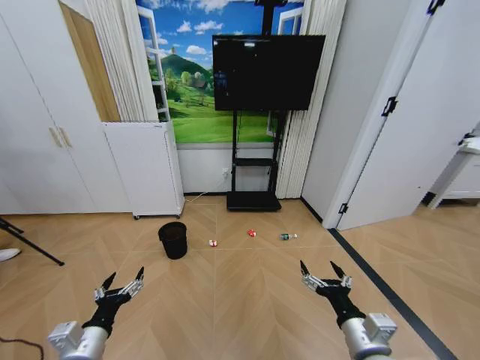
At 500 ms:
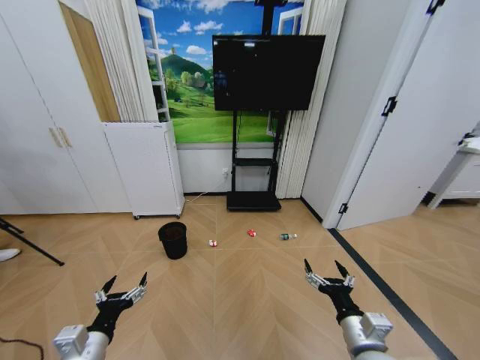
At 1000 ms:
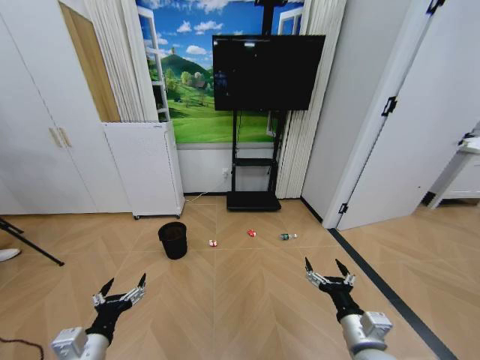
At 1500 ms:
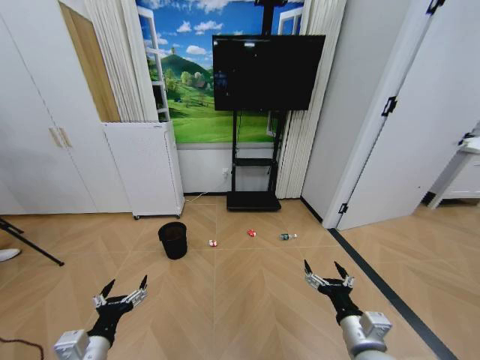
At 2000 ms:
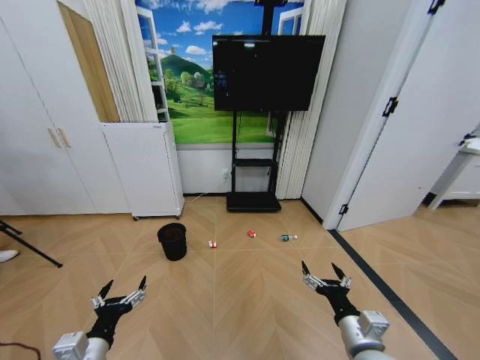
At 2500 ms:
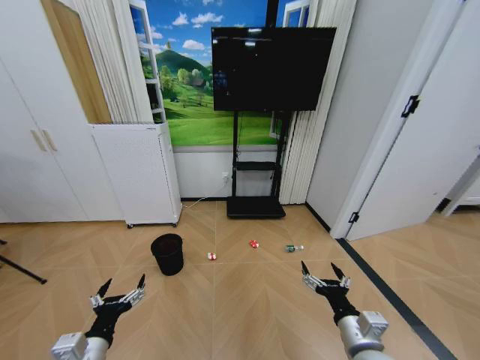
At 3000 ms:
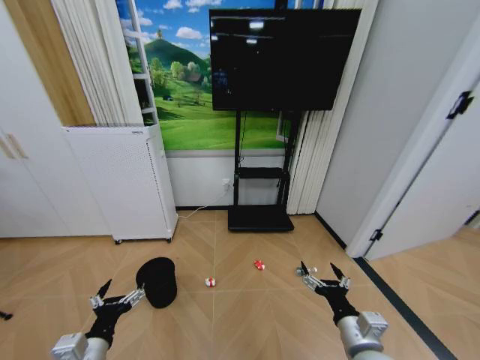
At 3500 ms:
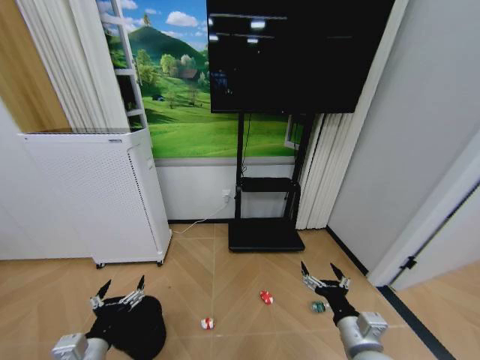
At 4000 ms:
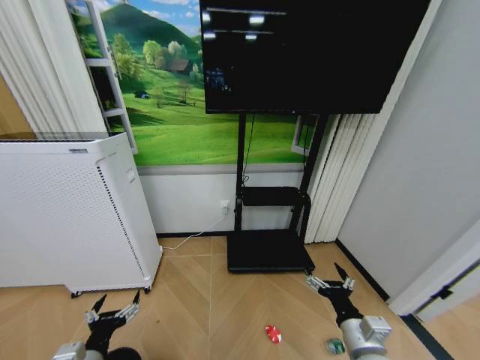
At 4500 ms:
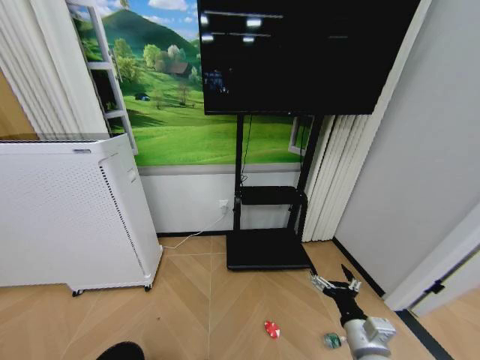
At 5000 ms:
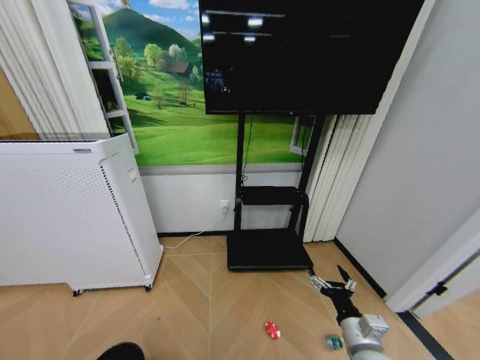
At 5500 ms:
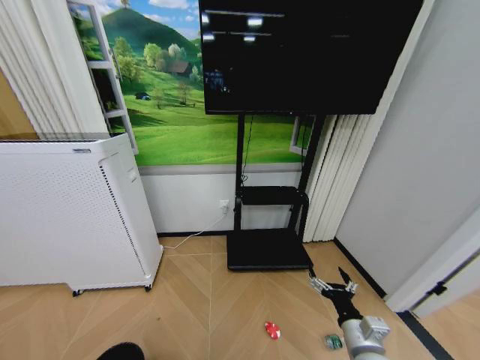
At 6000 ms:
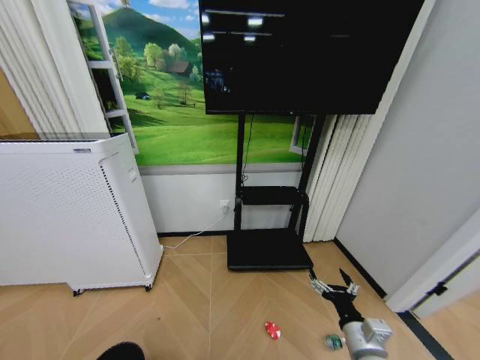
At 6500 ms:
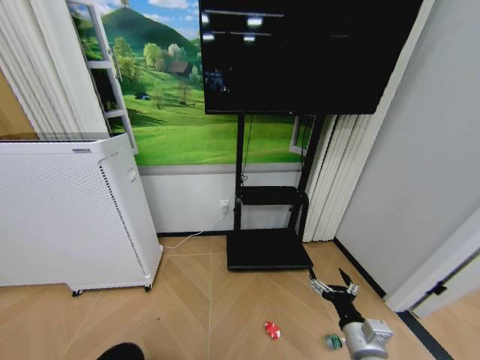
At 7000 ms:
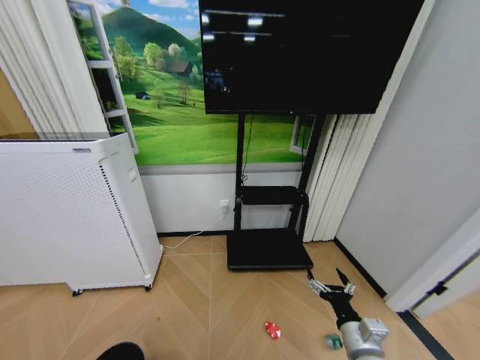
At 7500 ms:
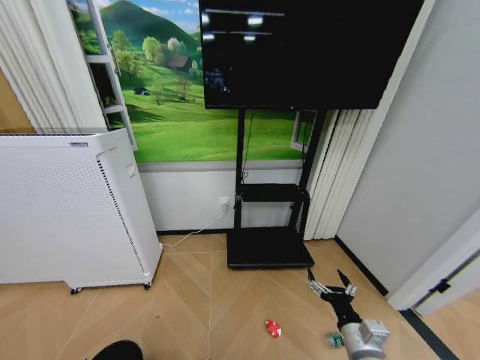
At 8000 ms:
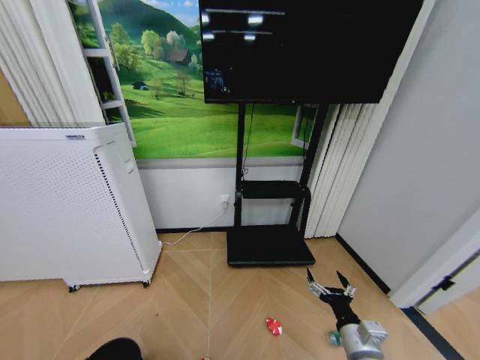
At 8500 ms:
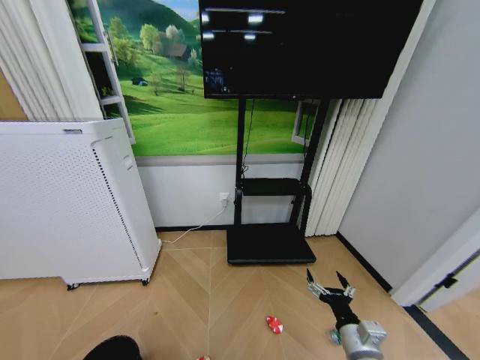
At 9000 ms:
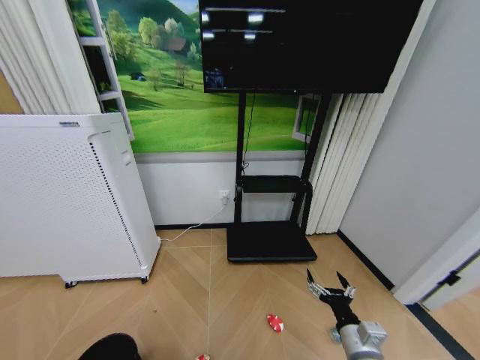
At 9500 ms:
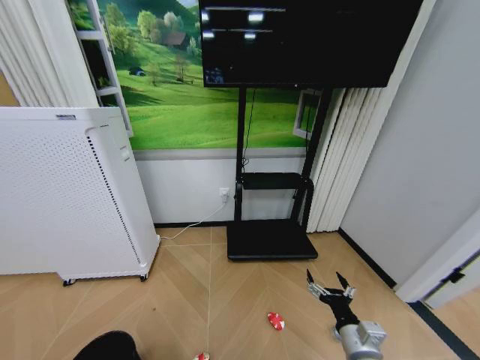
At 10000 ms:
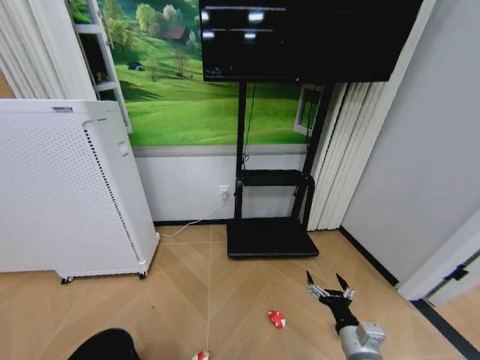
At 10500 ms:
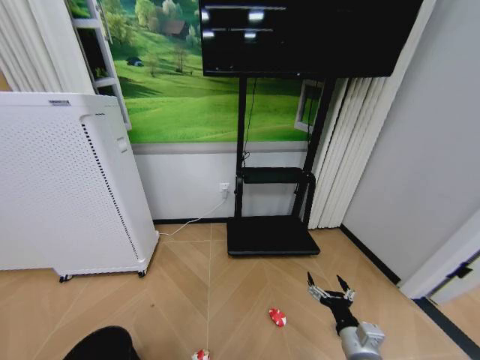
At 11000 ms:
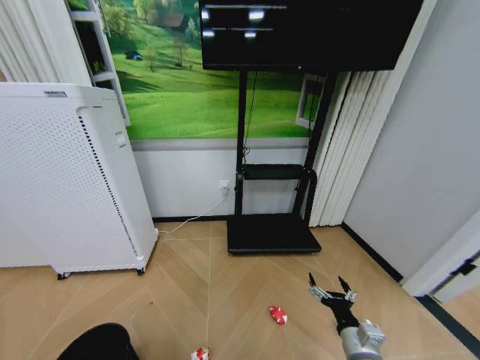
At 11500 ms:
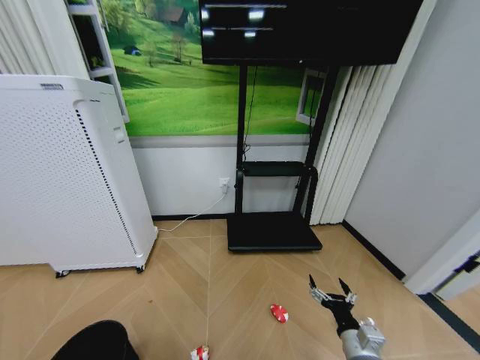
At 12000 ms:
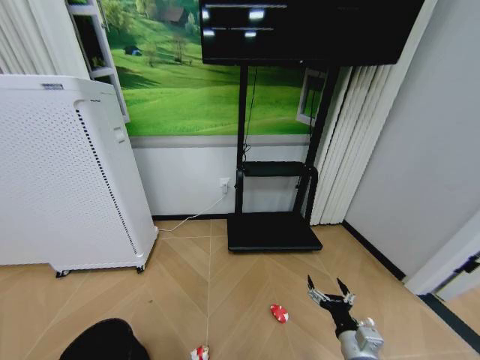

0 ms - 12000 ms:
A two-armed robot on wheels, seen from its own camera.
Task of the whole recording: Pick up the trash bin and place the garbage on the floor into it.
4000 ms - 6000 ms: The left gripper goes roughly 30 cm downward, to the left and backward.
6000 ms - 8000 ms: The left gripper travels upward by roughly 5 cm.
10000 ms - 12000 ms: The left gripper is displaced upward by about 5 cm, and closes its fingers.

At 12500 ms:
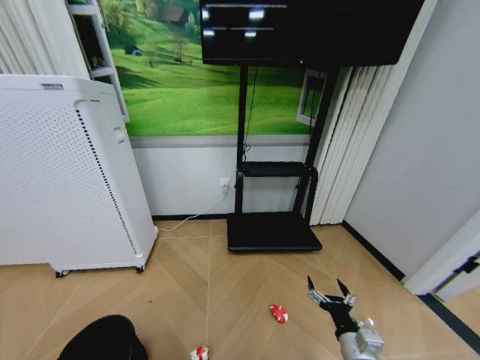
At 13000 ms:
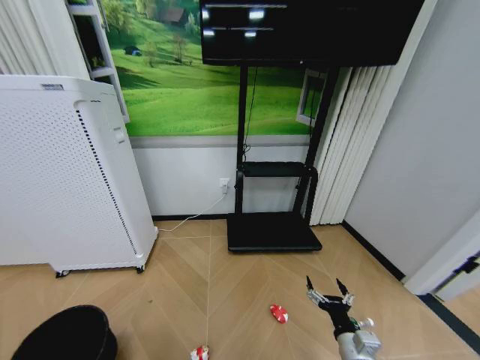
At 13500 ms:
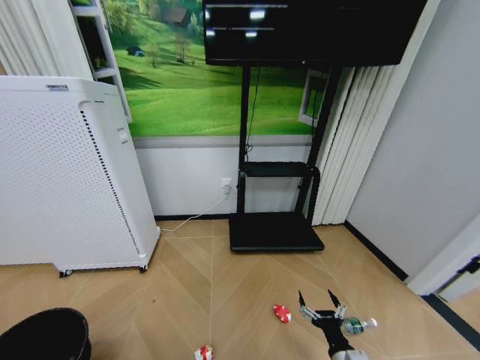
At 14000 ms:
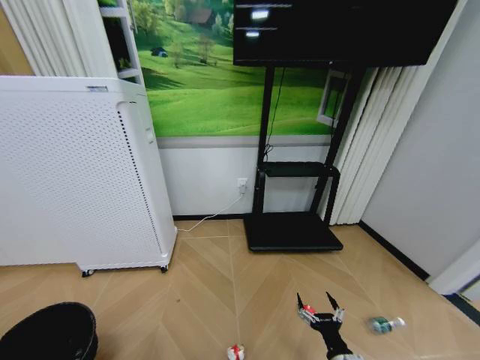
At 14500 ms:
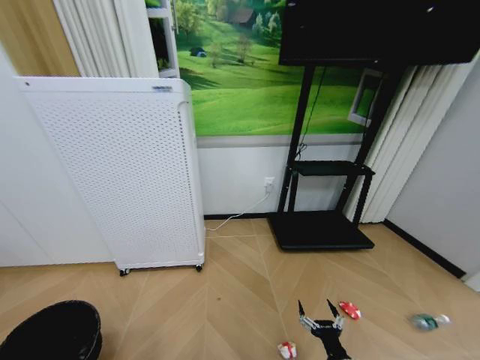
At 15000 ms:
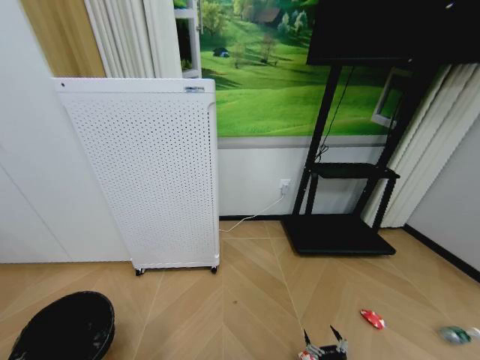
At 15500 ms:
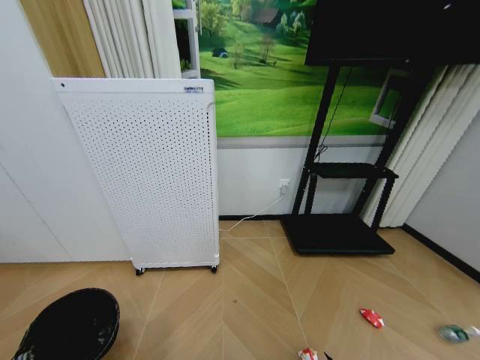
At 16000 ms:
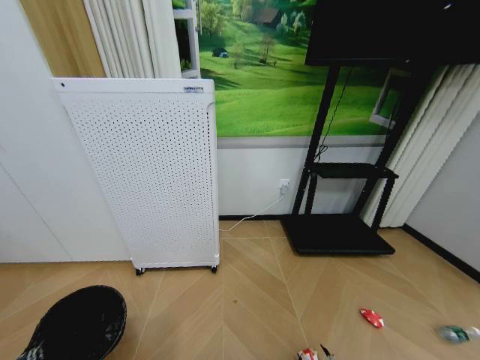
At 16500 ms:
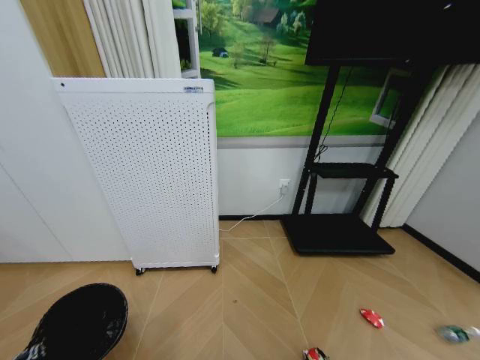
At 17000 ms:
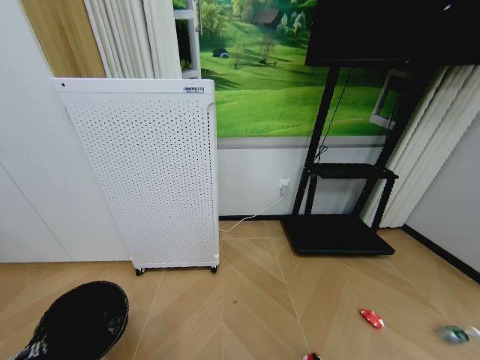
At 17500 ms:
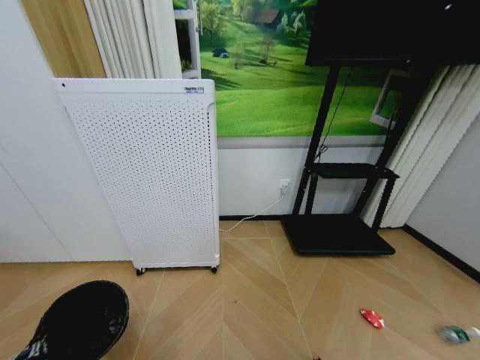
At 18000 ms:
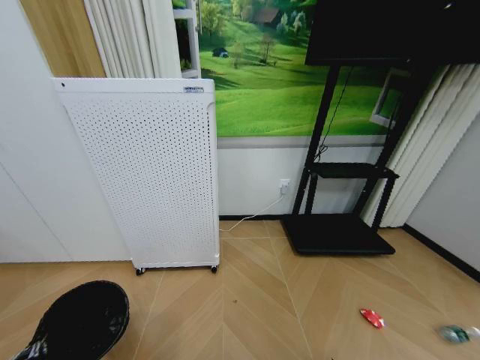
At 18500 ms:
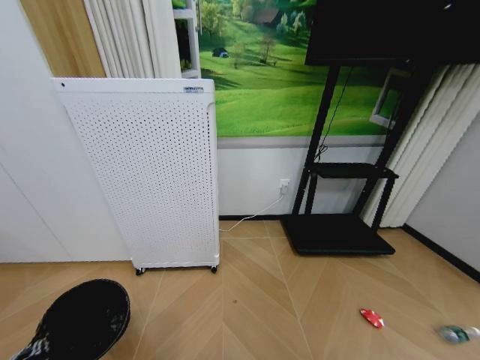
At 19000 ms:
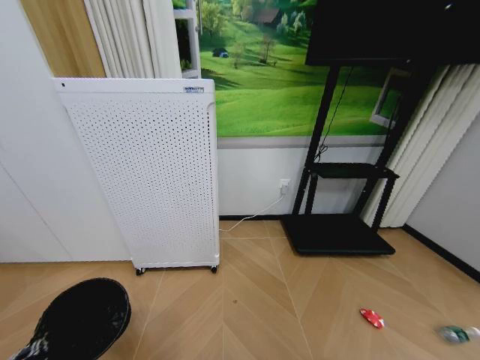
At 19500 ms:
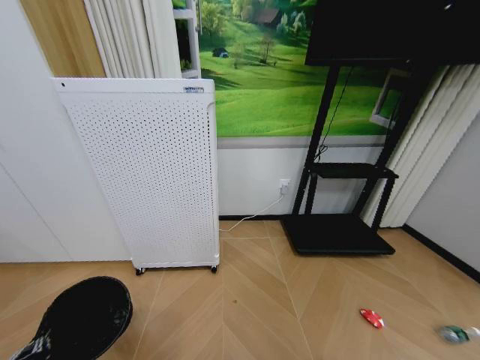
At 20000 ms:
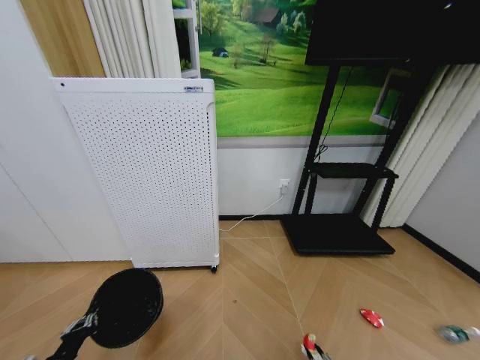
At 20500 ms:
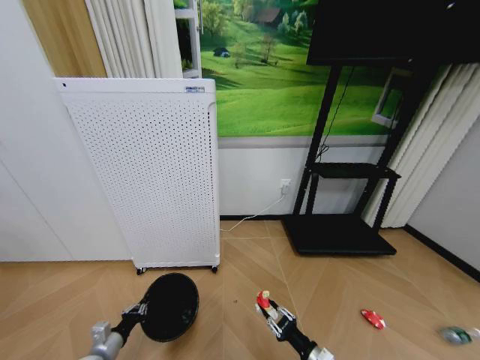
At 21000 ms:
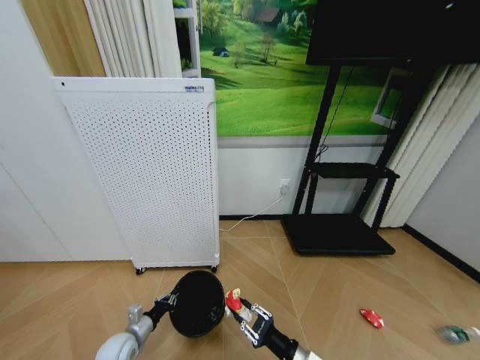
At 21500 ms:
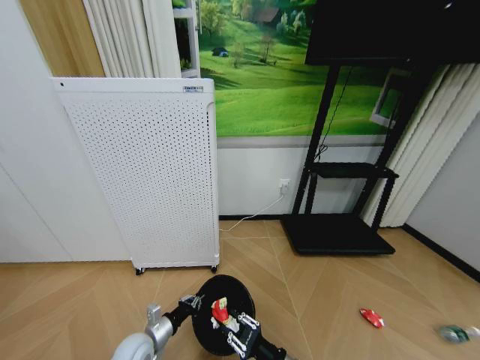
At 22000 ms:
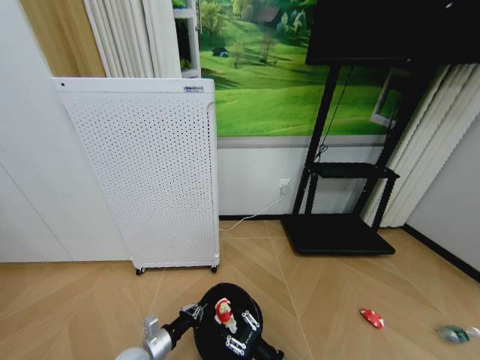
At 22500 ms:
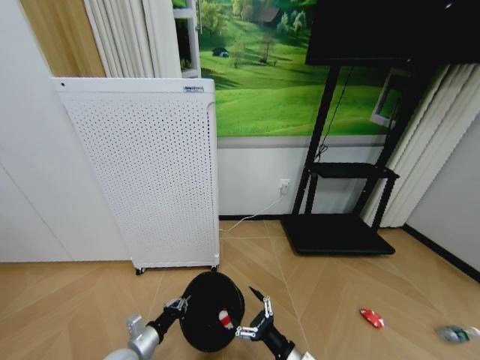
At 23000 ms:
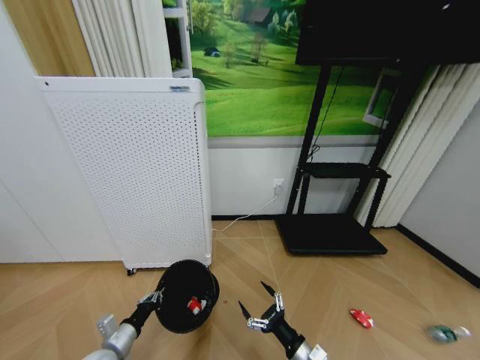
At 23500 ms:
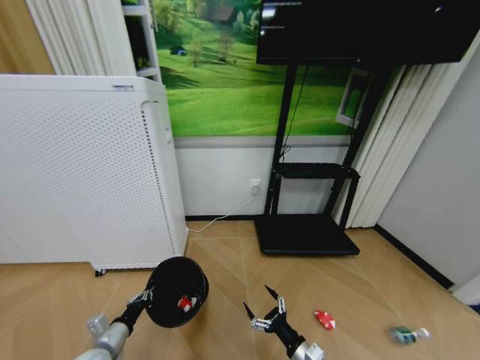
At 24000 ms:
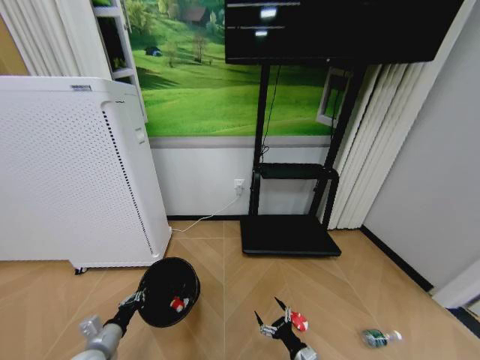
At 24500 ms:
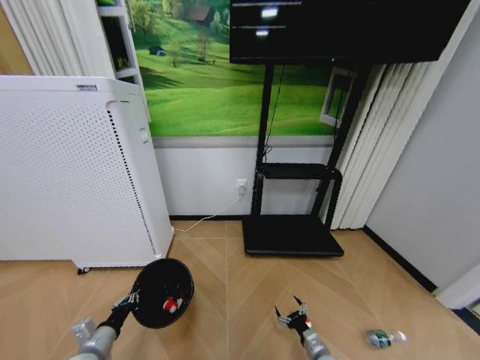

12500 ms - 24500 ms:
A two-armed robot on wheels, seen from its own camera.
Task of the whole recording: Pick up the trash bin and place the garbage on the floor into it.
12500 ms - 14500 ms: The right gripper moves downward, approximately 5 cm. Meanwhile the left gripper is displaced to the left and upward by some 10 cm.
14500 ms - 16500 ms: The right gripper goes roughly 15 cm downward, and closes.
18500 ms - 20500 ms: The left gripper shifts roughly 20 cm forward, downward and to the right; the right gripper is displaced upward, forward and to the left by some 20 cm, and closes up.
20500 ms - 22500 ms: The left gripper goes some 10 cm to the right, while the right gripper goes about 10 cm to the left and upward, and opens up.
22500 ms - 24500 ms: The left gripper travels to the left by roughly 10 cm. The right gripper moves downward, to the right and forward, approximately 20 cm.

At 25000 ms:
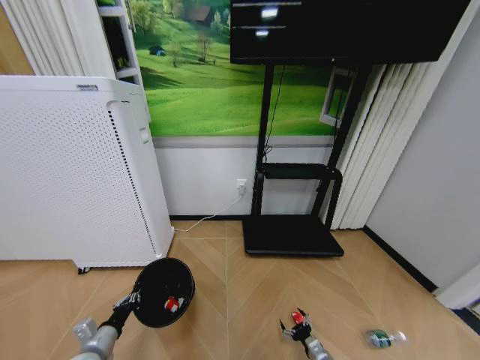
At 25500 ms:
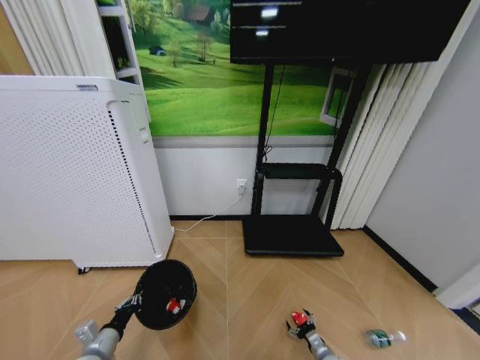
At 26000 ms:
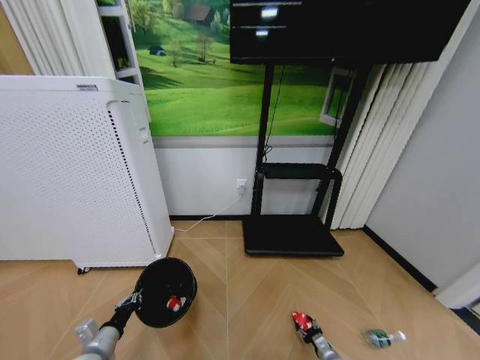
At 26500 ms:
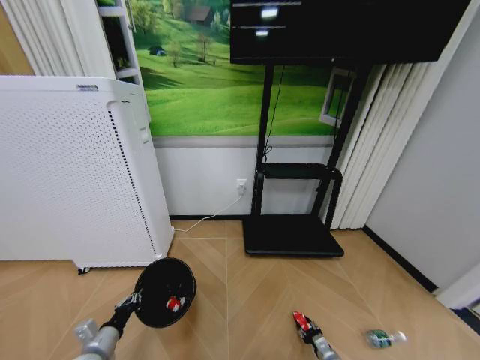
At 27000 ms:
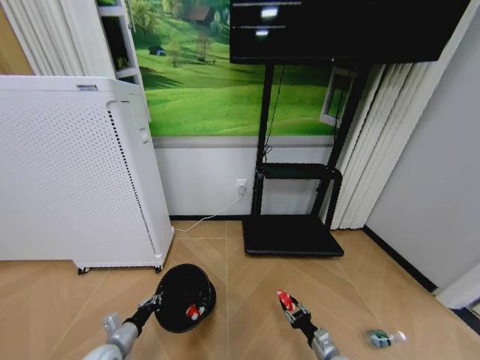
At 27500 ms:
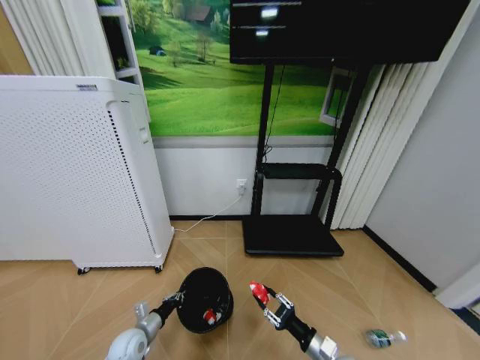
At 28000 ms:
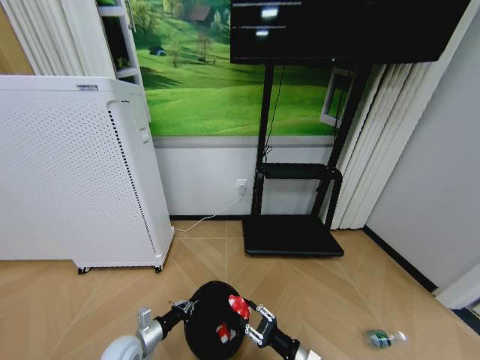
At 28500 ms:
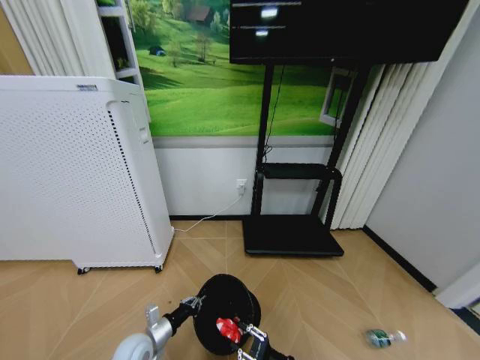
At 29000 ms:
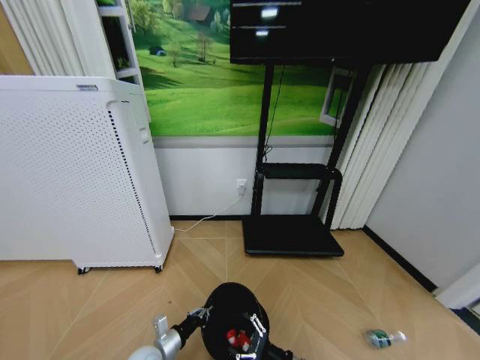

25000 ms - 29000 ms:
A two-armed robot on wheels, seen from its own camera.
Task of the whole recording: Pick up the trash bin and place the garbage on the floor into it.
25000 ms - 27000 ms: The right gripper is displaced upward by about 5 cm, and closes its fingers.
27000 ms - 29000 ms: The left gripper is displaced to the right by approximately 10 cm. Meanwhile the right gripper moves to the left and upward, some 15 cm, and opens up.
